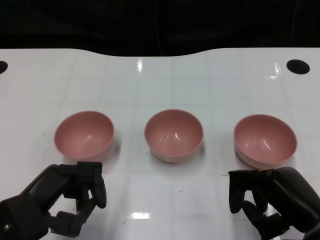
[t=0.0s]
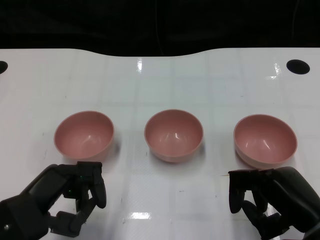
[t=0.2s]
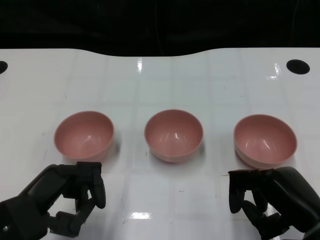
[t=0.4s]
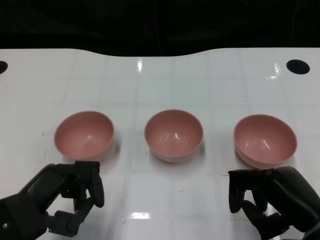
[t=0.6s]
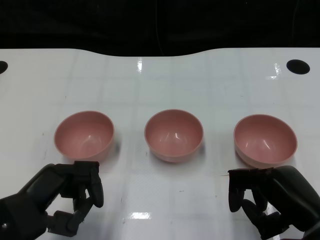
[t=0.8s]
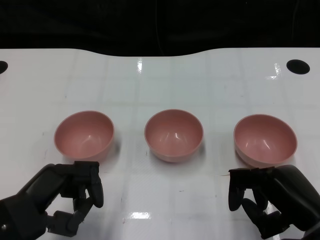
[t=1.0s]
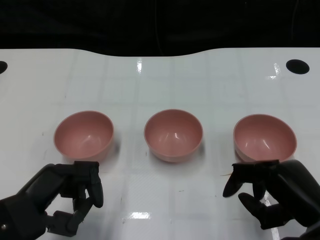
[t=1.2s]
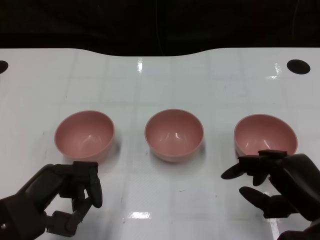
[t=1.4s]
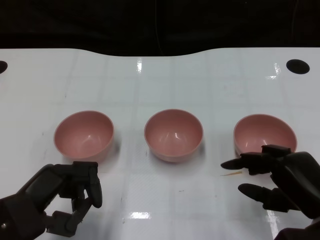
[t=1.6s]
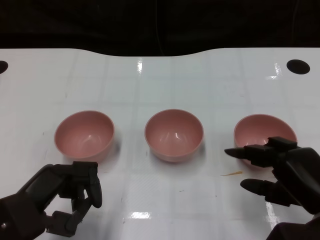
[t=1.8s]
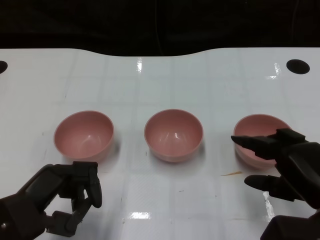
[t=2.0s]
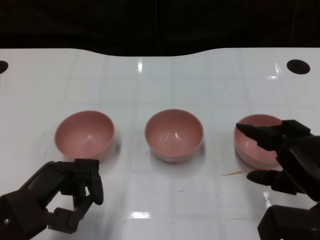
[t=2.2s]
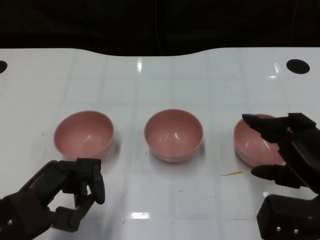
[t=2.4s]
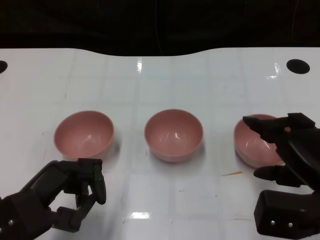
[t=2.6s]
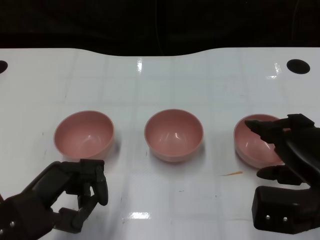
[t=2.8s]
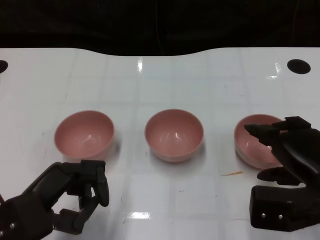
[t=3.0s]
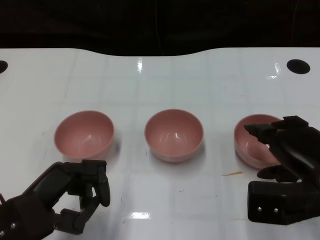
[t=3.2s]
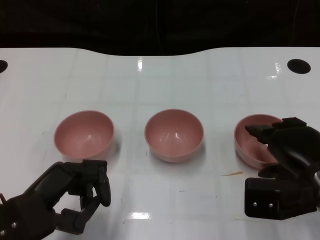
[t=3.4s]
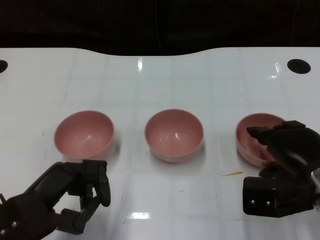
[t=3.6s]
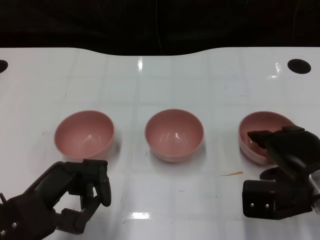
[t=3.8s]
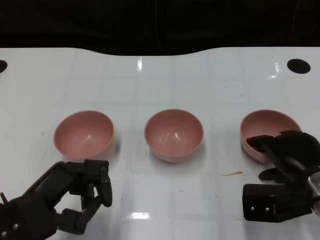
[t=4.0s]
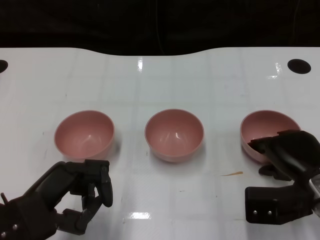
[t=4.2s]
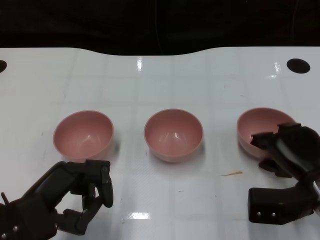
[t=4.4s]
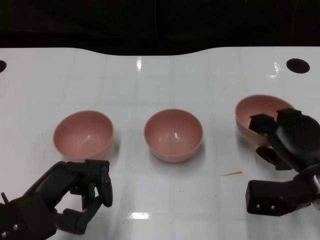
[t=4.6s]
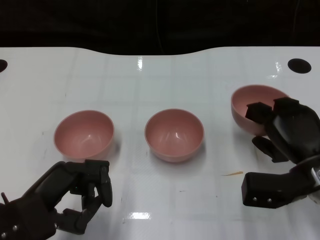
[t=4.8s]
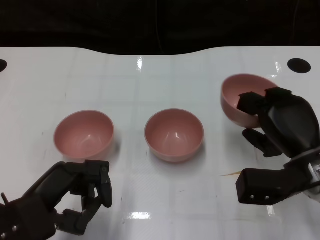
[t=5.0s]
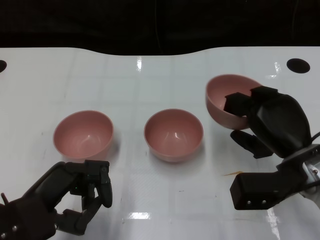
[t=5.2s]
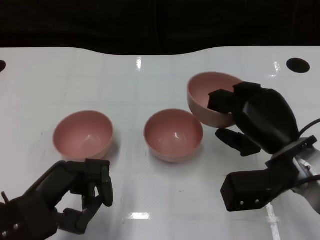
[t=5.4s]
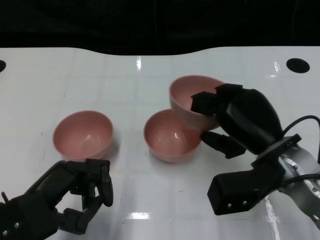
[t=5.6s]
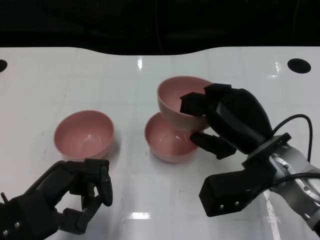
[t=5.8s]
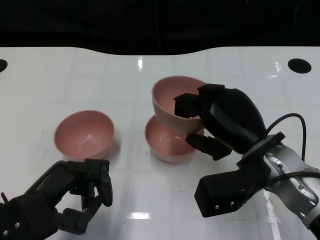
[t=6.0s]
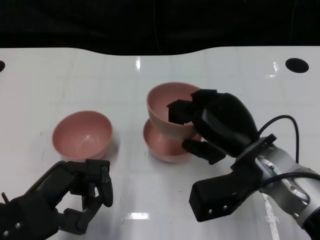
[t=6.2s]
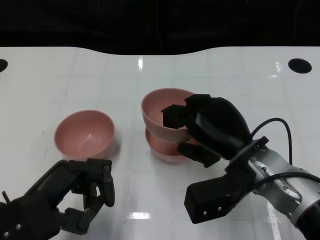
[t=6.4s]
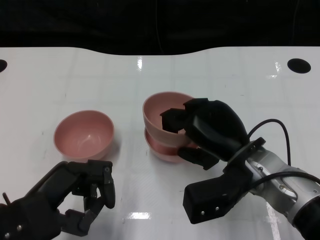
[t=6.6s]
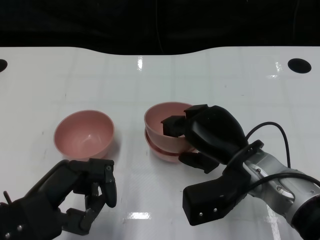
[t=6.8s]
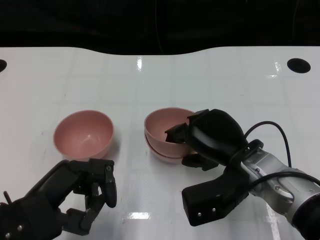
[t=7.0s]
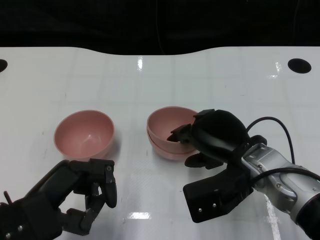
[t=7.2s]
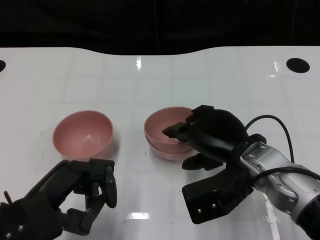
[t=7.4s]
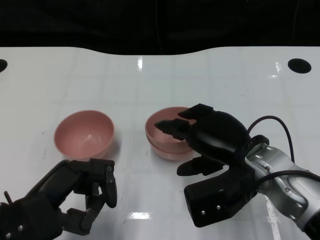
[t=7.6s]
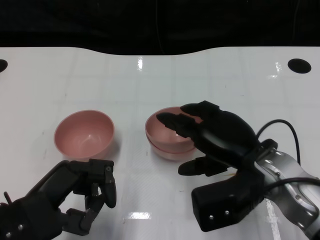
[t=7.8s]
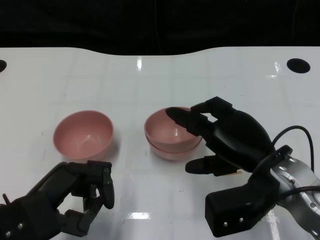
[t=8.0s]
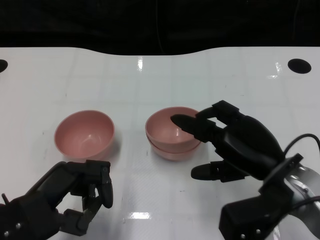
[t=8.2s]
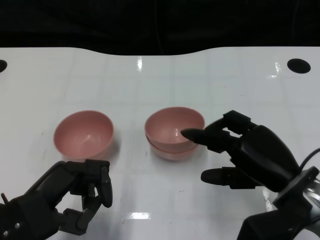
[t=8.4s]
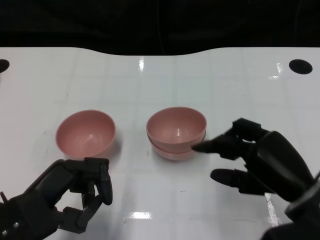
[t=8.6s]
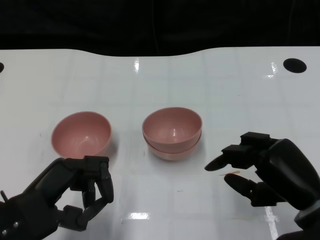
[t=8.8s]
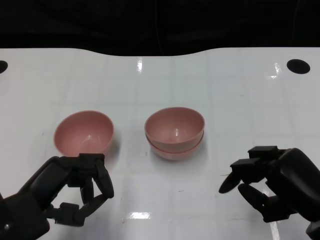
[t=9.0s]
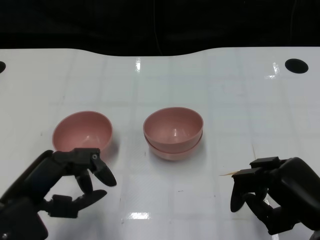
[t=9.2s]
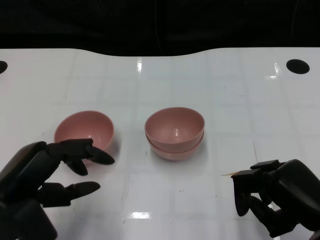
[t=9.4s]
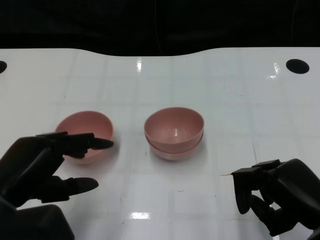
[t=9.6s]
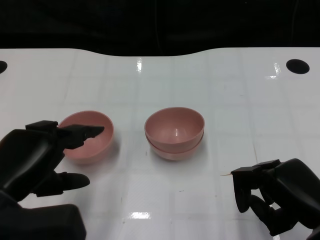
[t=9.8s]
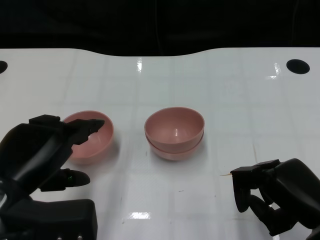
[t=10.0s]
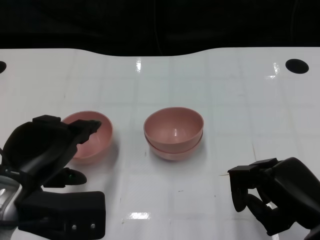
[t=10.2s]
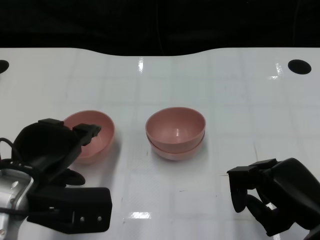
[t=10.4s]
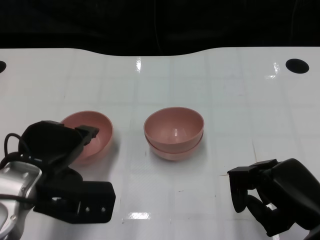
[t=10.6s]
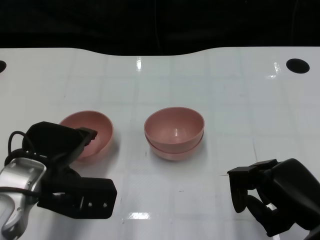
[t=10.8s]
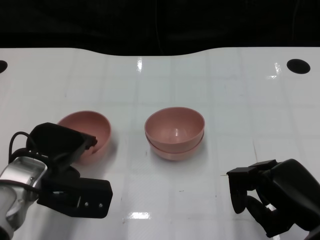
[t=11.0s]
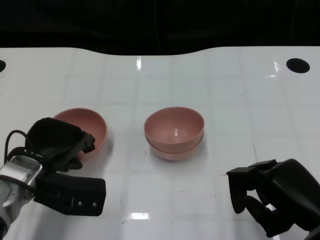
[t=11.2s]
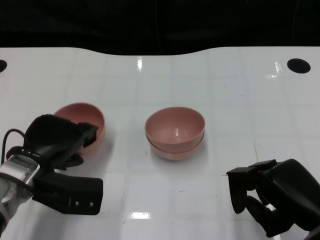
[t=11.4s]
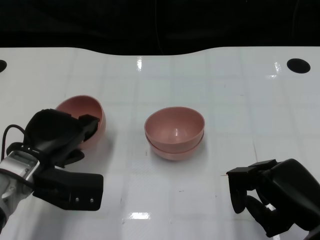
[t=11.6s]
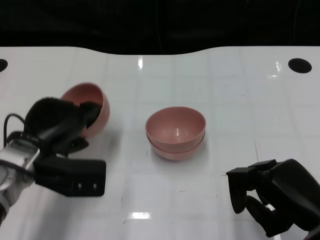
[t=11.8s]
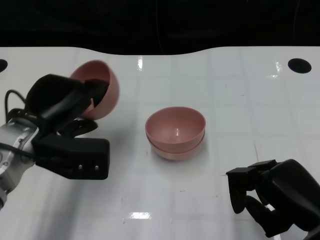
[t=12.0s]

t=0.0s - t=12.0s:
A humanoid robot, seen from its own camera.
Task of the whole recording: Pick up the bowl on one side of the table and place it on top of the middle bowl, then pick up the bowl on the other side of the table and place it on top of the middle bowls.
Step, t=1.2s - t=4.4s: Grasp the bowl on the right with the right gripper.
Step, t=4.6s - t=8.0s: Place the bowl on the right onto the bowl in the middle with right gripper.
Step, t=8.2s - t=11.4s: Grasp the bowl on the left with the left gripper.
t=3.0s - t=4.4s: The right hand moves downward, roughly 5 cm.
t=4.4s - t=6.0s: The right hand is displaced to the left and upward by some 10 cm.
t=7.6s - t=9.0s: The right hand heads to the right and backward, covering roughly 15 cm.
t=9.0s - t=10.4s: The left hand moves approximately 5 cm.
t=10.4s - t=12.0s: The left hand heads forward, covering approximately 5 cm.

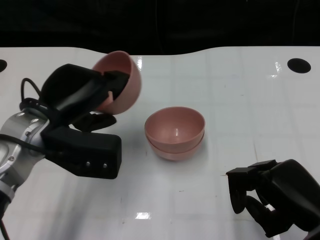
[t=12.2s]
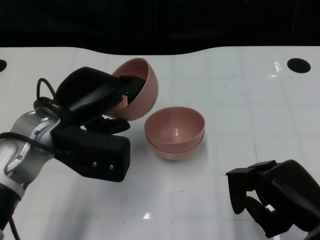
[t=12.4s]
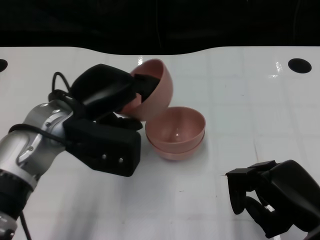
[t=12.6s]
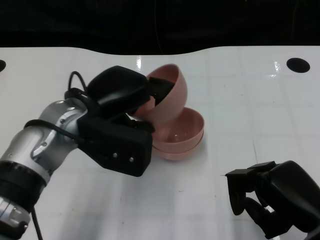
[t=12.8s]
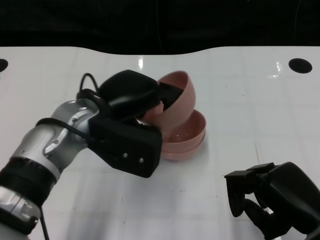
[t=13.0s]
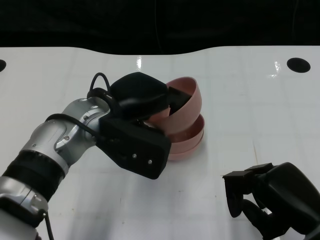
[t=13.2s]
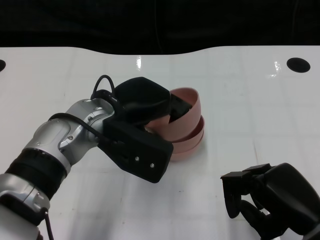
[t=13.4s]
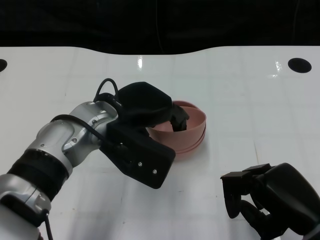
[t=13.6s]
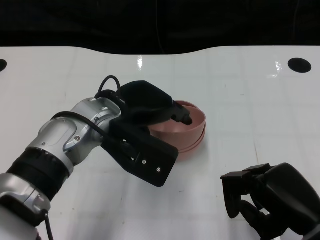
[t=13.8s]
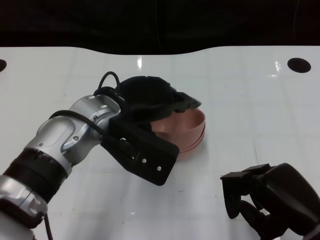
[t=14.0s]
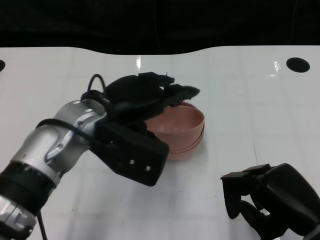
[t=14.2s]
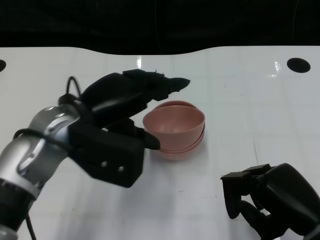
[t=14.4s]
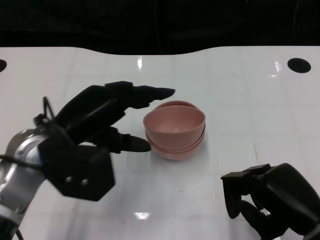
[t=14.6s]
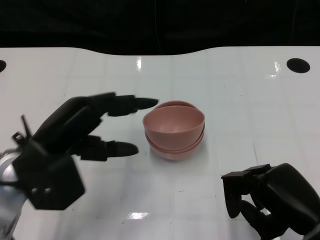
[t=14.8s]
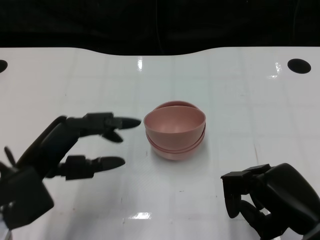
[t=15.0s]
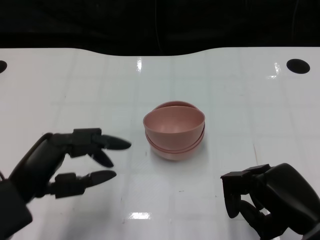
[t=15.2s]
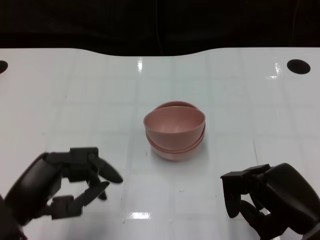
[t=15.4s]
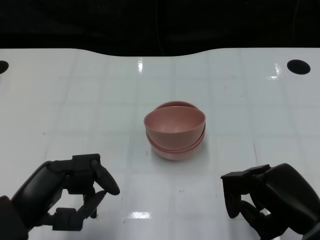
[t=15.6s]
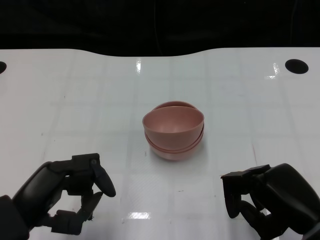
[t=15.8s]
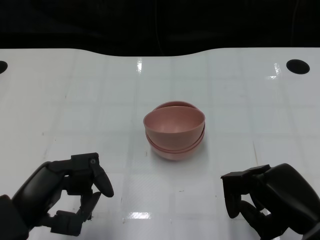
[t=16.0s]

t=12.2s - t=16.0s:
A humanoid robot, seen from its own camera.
Task of the whole recording: Pick up the bowl on one side of the table and place it on top of the middle bowl, then pick up the bowl on the other side of the table and place it on top of the middle bowls.
Step, t=12.2s - t=14.6s: Place the bowl on the left onto the bowl in the middle with left gripper.
t=12.2s - t=13.4s: The left hand moves to the right, roughly 10 cm.
t=13.4s - t=14.8s: The left hand shifts approximately 10 cm to the left and backward.
t=14.8s - t=16.0s: The left hand is displaced backward by about 10 cm.

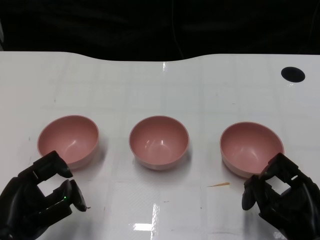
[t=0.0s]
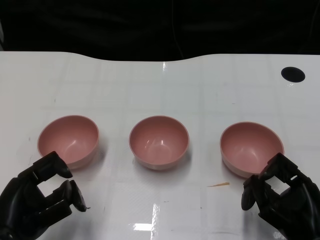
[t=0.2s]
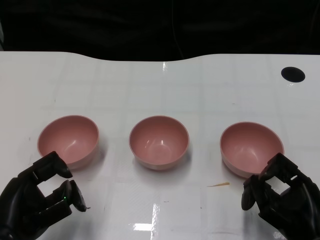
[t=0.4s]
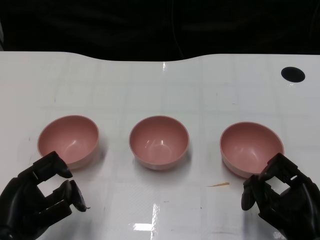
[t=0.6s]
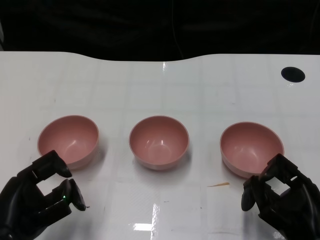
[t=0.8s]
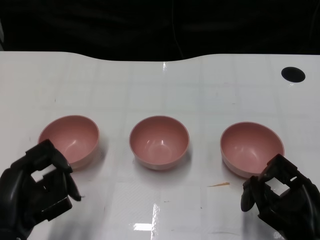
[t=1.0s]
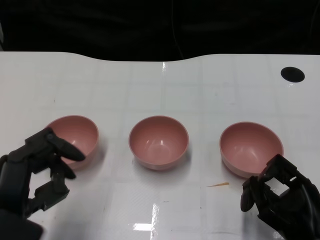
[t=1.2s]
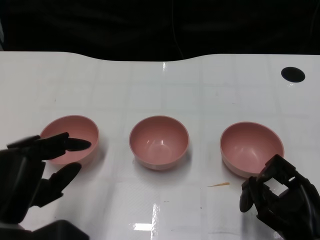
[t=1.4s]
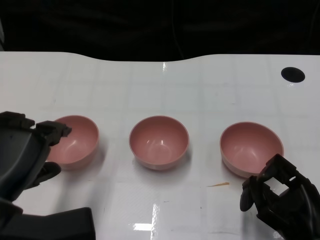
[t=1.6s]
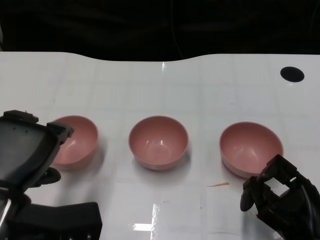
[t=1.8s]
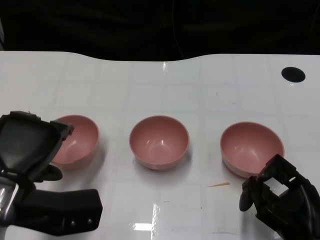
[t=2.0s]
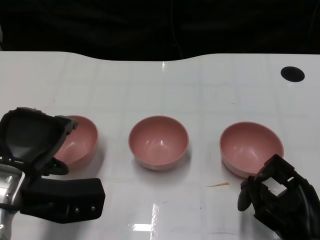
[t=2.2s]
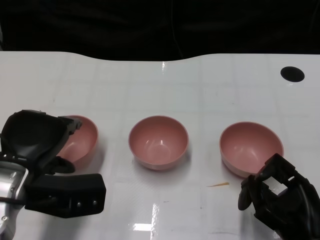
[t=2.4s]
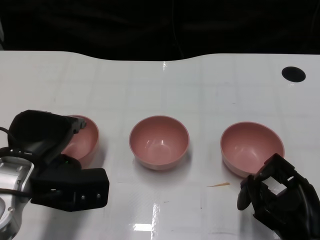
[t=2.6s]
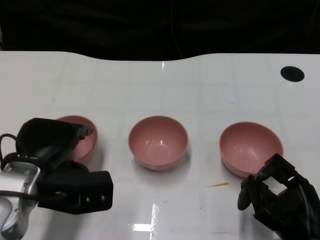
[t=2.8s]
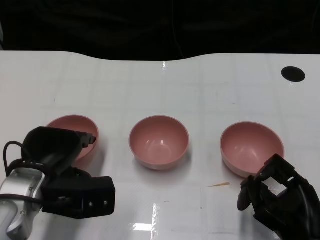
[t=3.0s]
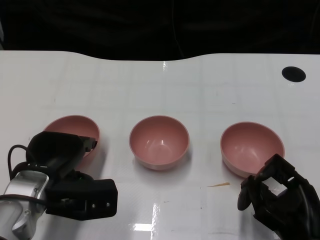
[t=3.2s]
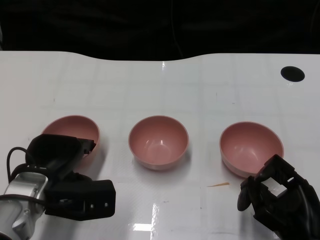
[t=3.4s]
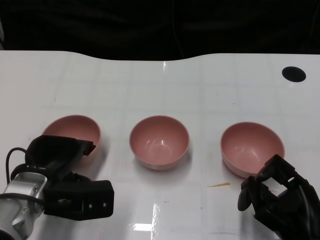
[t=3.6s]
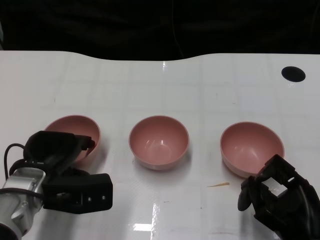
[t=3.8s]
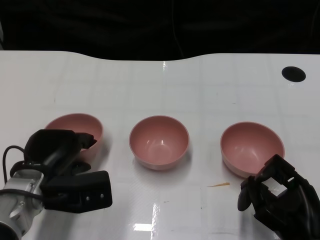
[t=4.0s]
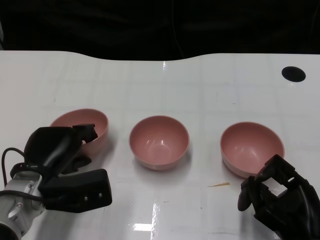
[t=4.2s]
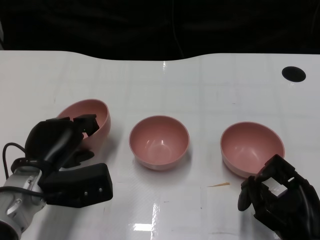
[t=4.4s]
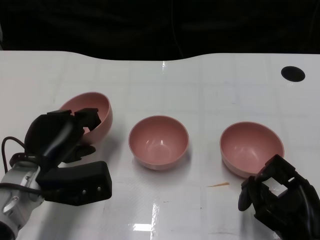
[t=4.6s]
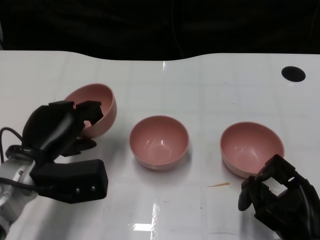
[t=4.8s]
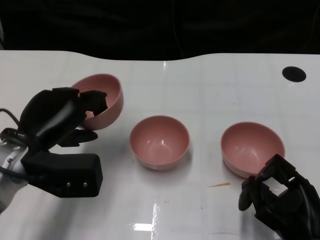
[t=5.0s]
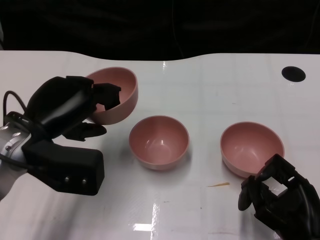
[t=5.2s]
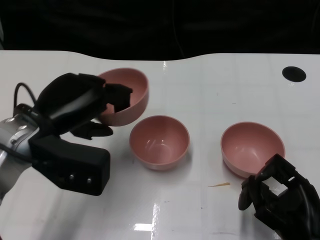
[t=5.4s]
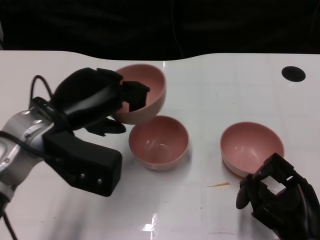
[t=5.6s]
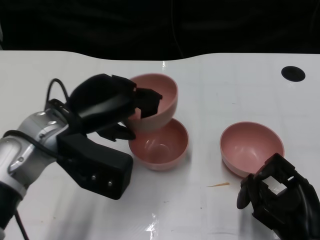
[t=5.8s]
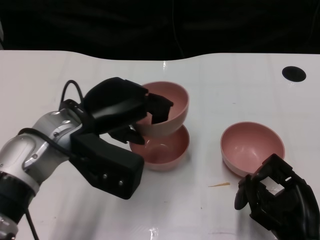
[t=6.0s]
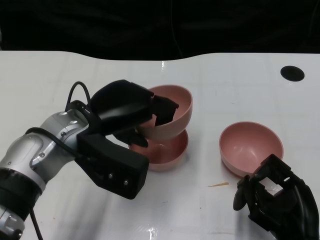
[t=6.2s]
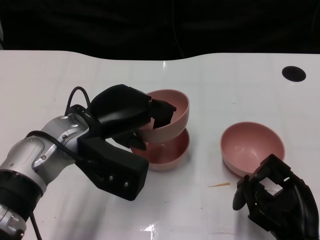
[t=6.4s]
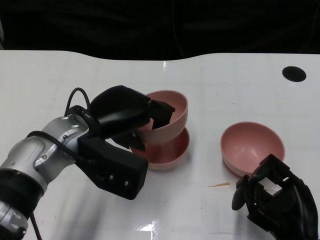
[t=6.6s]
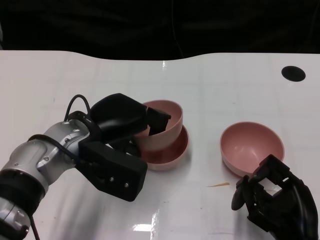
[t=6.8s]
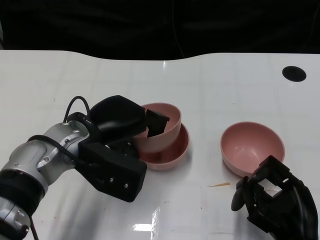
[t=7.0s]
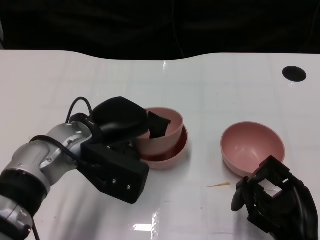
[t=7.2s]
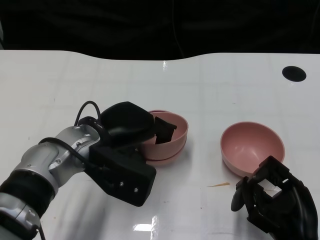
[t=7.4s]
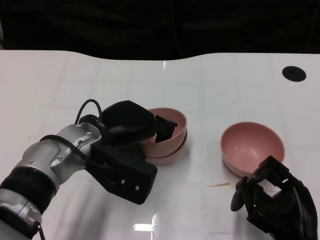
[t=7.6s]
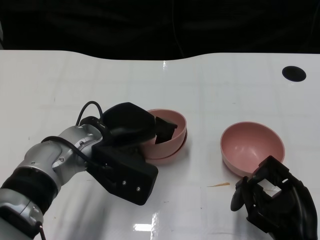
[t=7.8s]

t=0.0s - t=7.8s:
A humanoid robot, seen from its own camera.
Task of the whole recording: Pick up the bowl on one side of the table and place it on top of the middle bowl, then pick up the bowl on the other side of the table and place it on top of the middle bowls.
Step, t=1.0s - t=4.2s: Grasp the bowl on the left with the left gripper.
t=1.6s - t=3.2s: The left hand goes about 10 cm forward and downward.
t=4.6s - t=6.2s: The left hand is displaced upward and to the right by some 10 cm.
